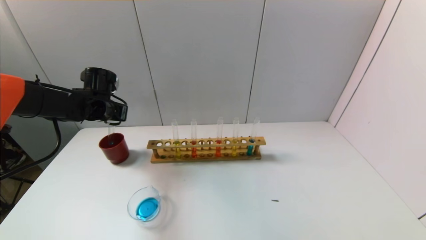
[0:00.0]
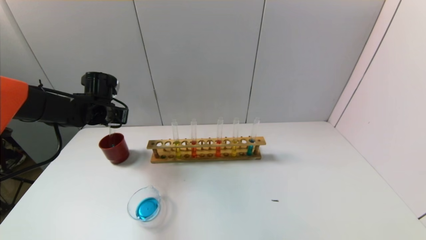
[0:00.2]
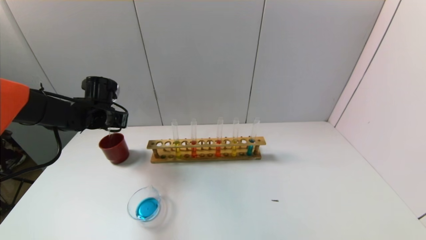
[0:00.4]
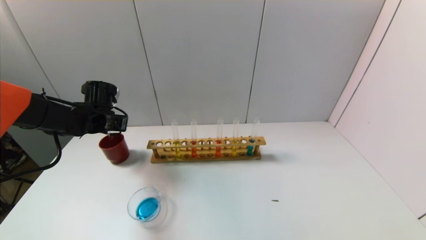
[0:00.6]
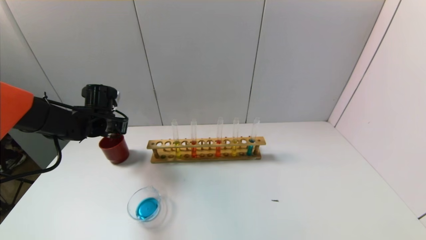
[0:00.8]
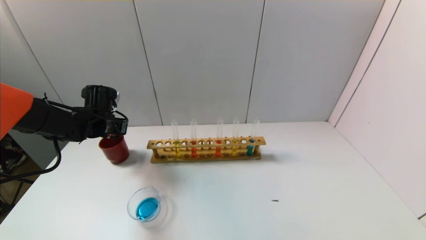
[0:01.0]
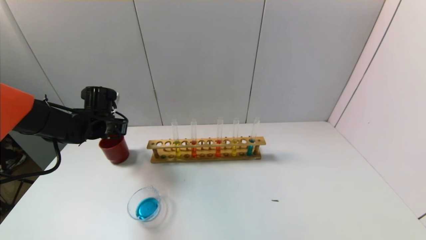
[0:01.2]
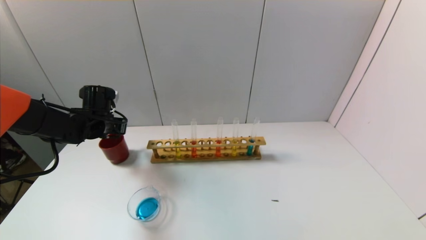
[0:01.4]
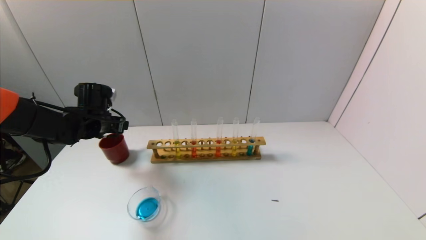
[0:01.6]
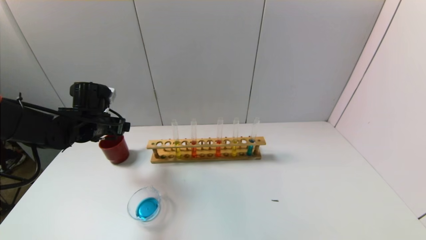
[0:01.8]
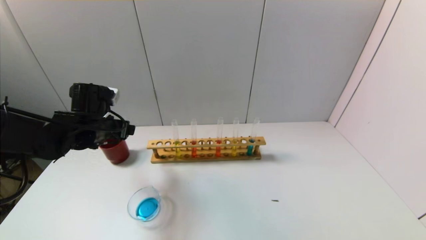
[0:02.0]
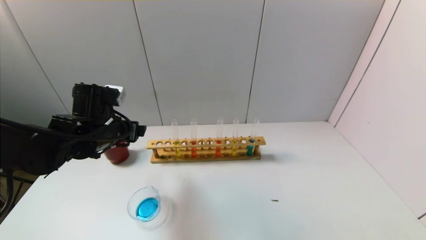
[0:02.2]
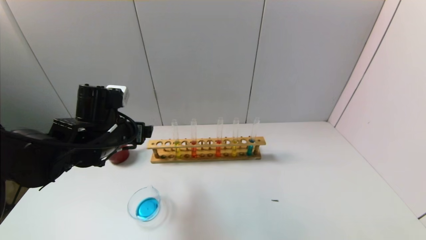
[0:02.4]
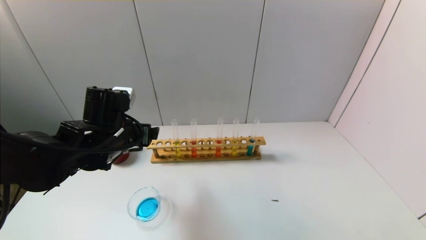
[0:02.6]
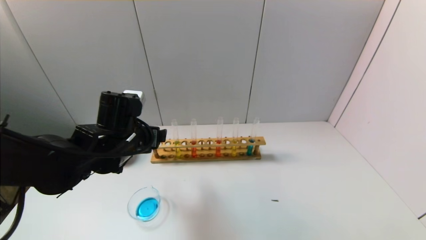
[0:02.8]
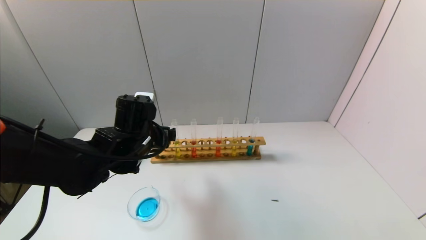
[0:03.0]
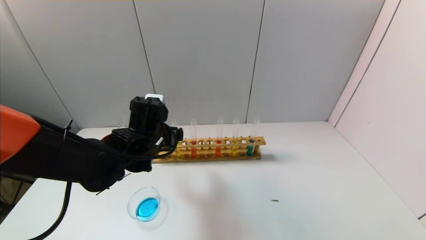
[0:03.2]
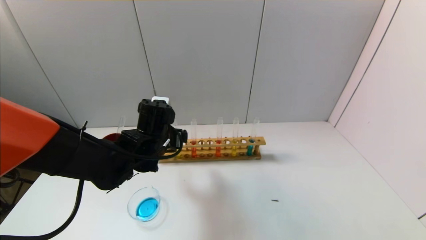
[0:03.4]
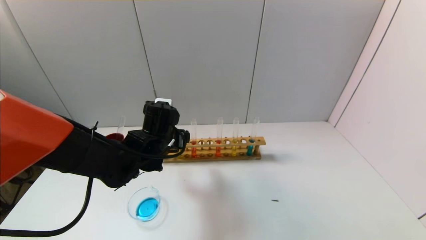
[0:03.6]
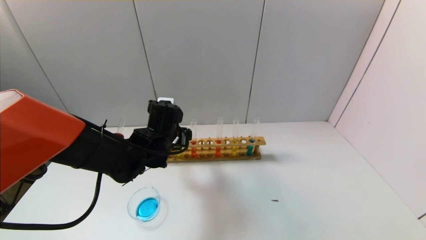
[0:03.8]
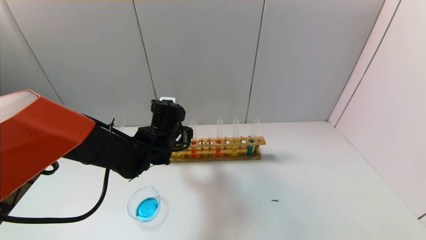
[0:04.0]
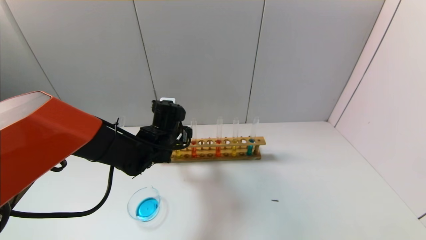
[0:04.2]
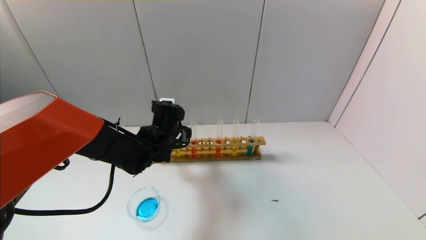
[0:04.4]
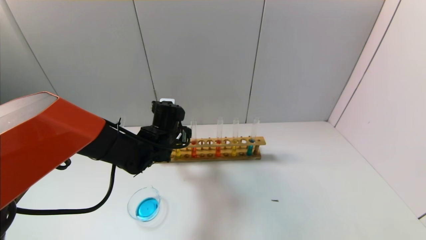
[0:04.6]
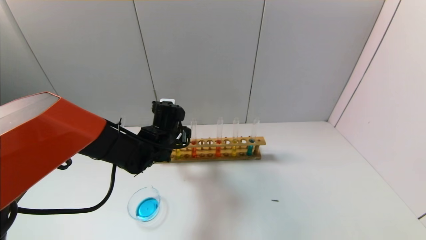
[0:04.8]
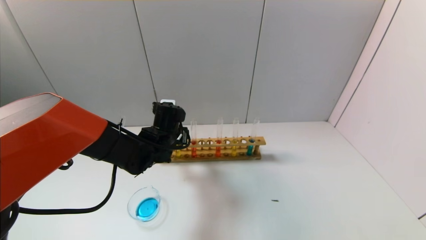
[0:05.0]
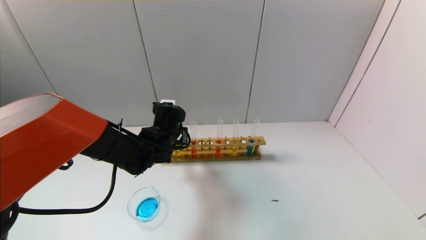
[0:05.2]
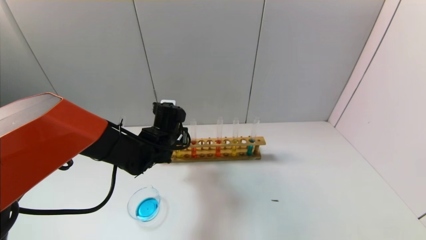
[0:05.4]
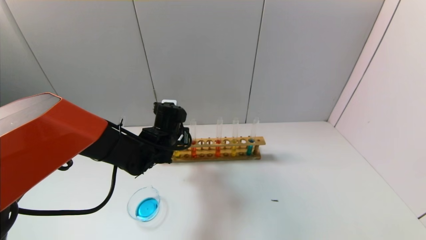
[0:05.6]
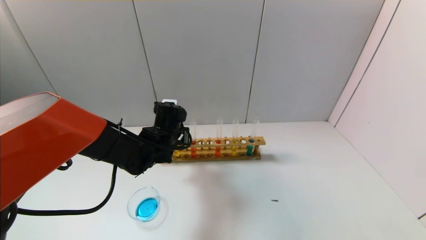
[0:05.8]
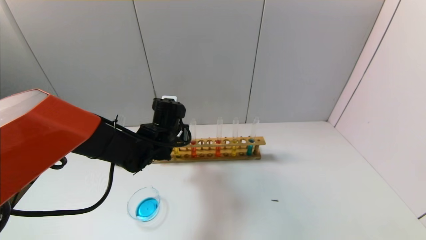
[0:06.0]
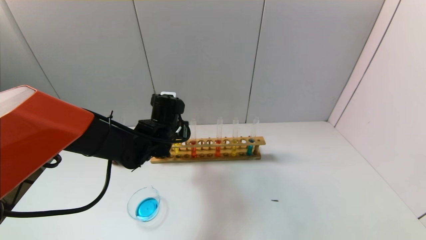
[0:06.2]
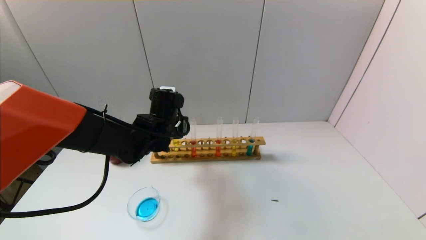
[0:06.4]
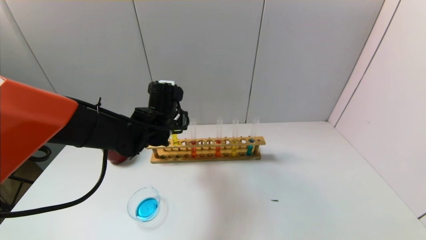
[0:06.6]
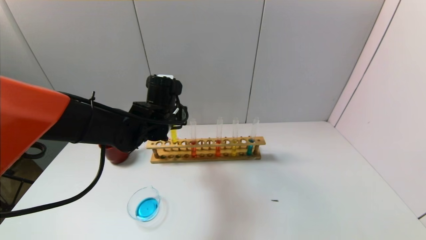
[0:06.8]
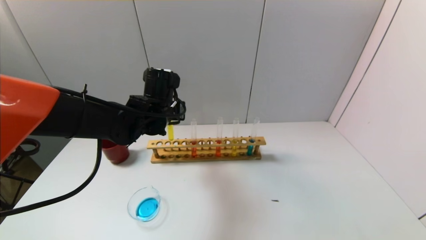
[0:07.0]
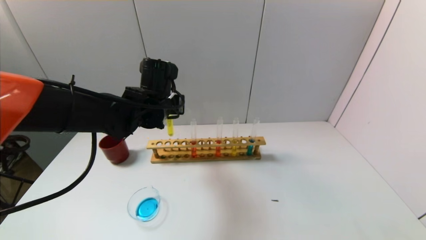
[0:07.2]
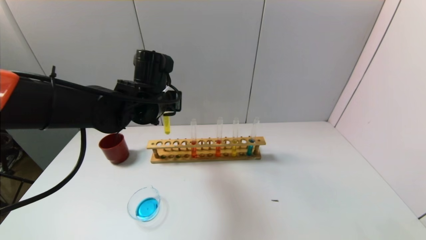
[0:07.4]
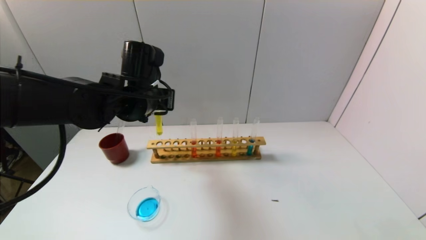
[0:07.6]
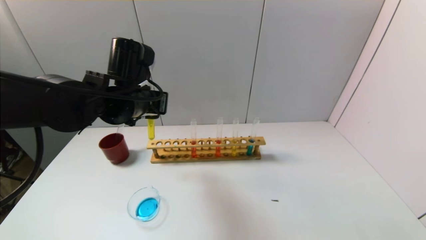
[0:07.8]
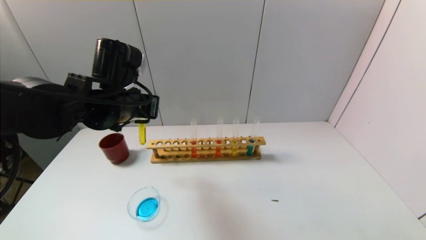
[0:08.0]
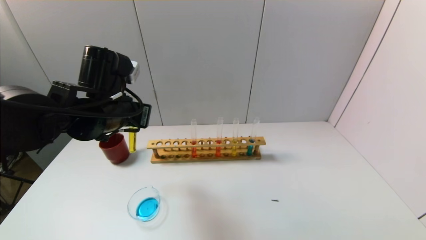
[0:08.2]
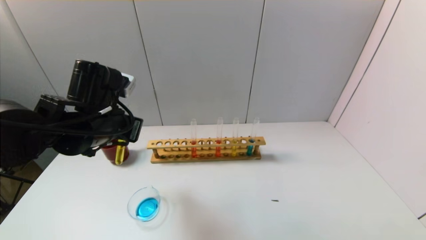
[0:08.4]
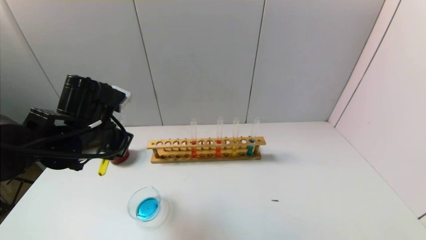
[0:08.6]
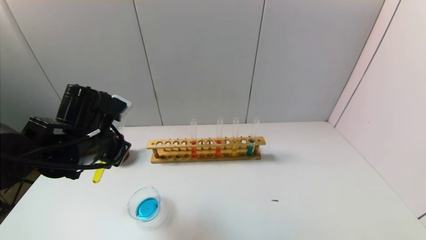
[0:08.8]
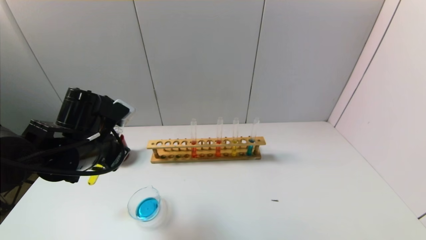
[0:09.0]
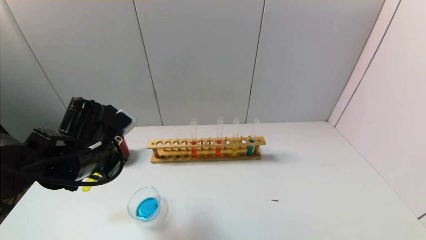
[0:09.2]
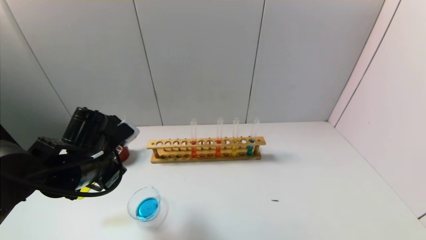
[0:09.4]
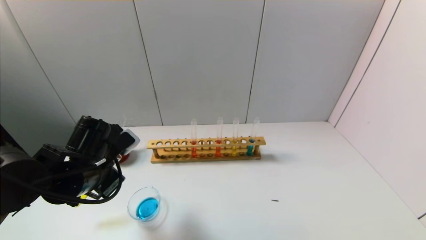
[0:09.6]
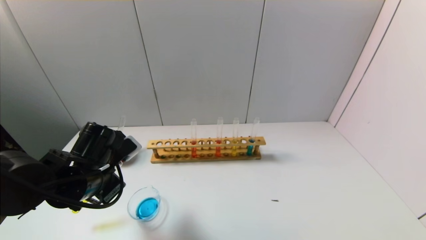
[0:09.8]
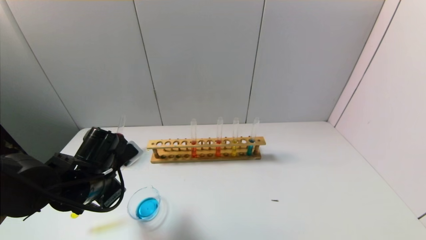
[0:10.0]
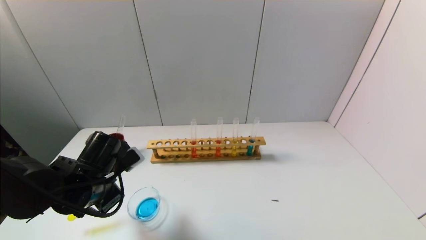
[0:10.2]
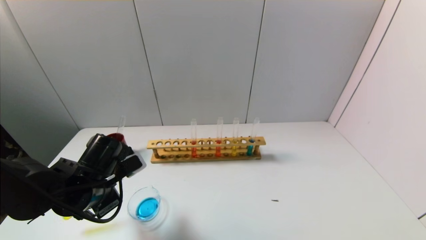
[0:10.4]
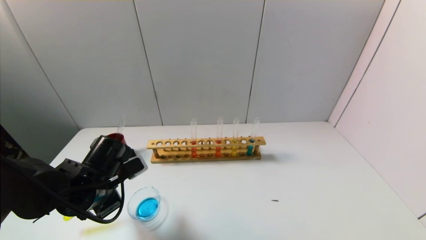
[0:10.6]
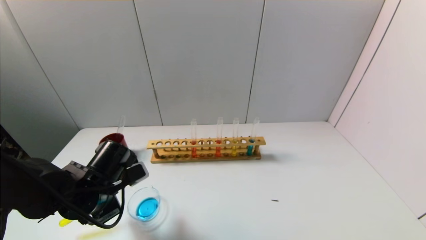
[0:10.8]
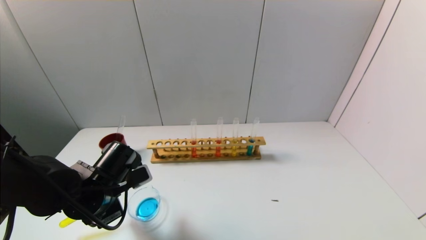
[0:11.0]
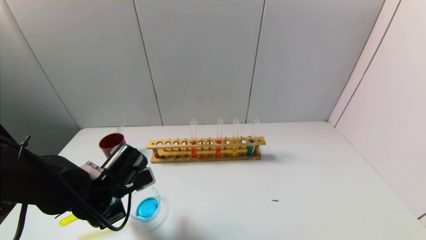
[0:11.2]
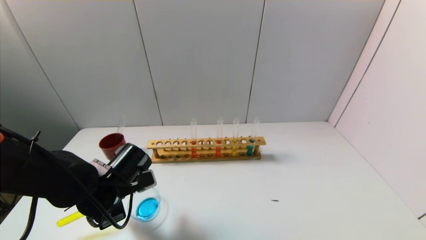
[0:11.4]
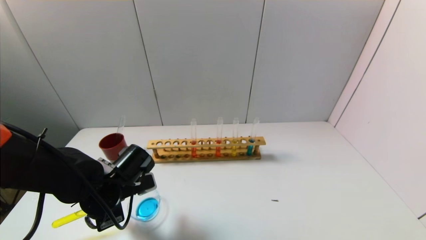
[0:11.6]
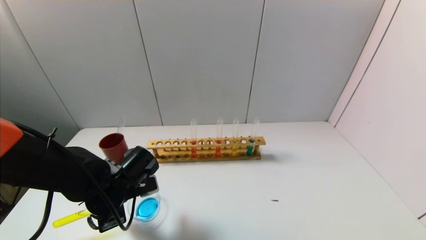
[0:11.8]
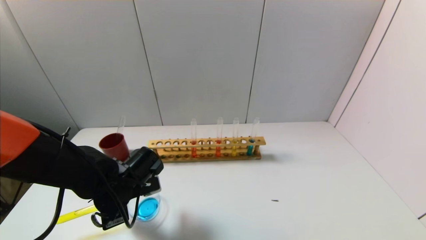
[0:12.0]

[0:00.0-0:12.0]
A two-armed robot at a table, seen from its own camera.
Task of the whole recording: pick up the test tube with yellow pigment and the test tube with blue pigment by grippers and pour them into the beaker.
Step, 0:01.6 to 0:05.6: Grasp the yellow reagent with the left gripper.
0:00.0 to 0:01.6: The left gripper opens up.
0:01.6 to 0:03.0: The left gripper shifts roughly 15 cm to the right and backward.
0:03.0 to 0:04.4: The left gripper goes approximately 5 cm forward.
0:04.4 to 0:06.0: The left gripper closes its fingers.
0:06.0 to 0:07.6: The left gripper goes roughly 10 cm upward.
0:07.6 to 0:09.0: The left gripper goes roughly 10 cm backward, to the left and downward.
0:09.0 to 0:10.4: The left gripper is displaced downward by approximately 10 cm.

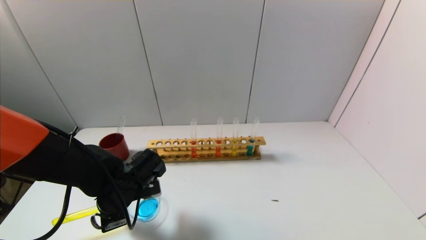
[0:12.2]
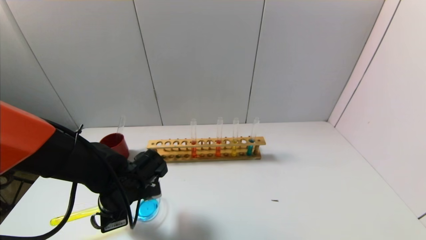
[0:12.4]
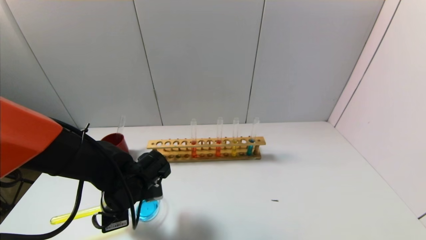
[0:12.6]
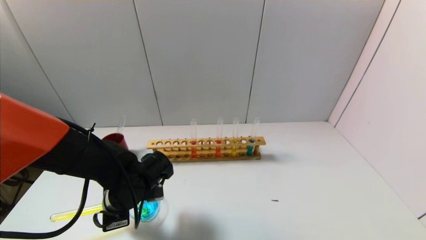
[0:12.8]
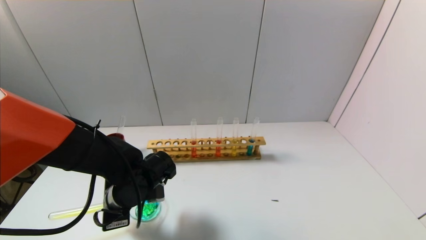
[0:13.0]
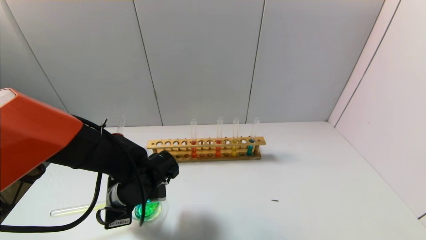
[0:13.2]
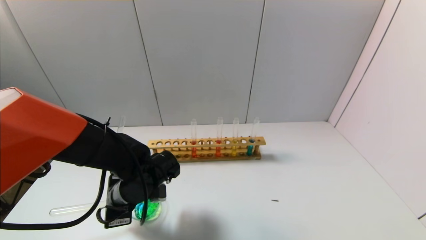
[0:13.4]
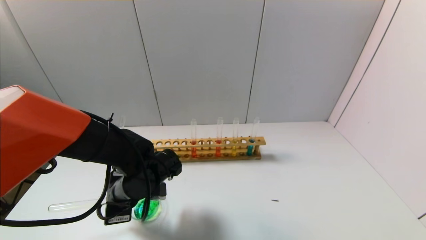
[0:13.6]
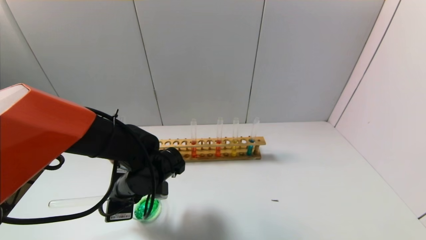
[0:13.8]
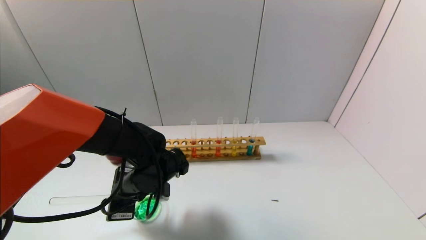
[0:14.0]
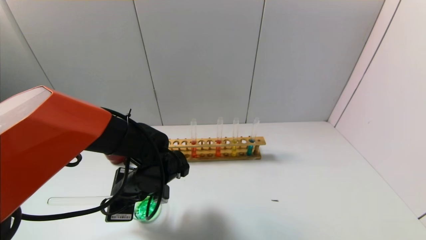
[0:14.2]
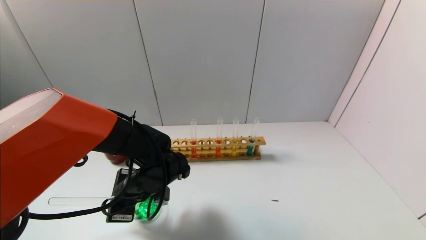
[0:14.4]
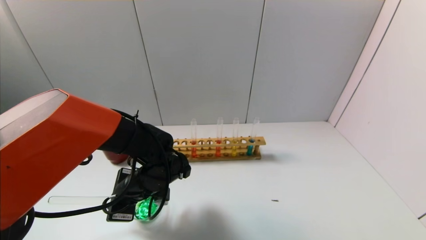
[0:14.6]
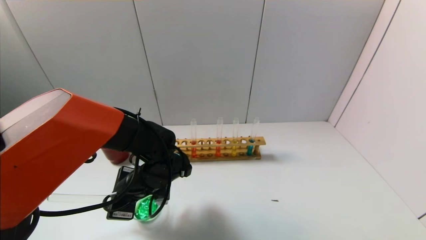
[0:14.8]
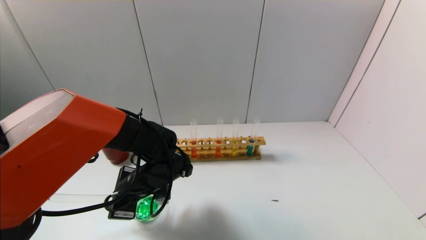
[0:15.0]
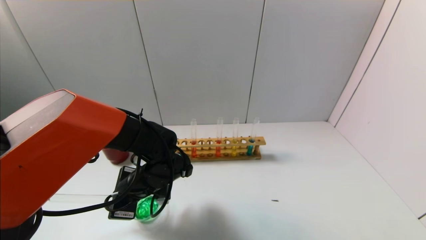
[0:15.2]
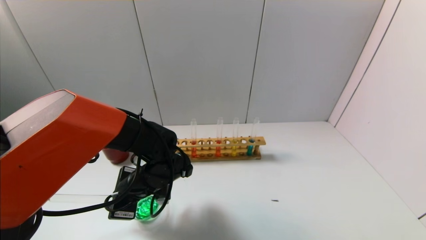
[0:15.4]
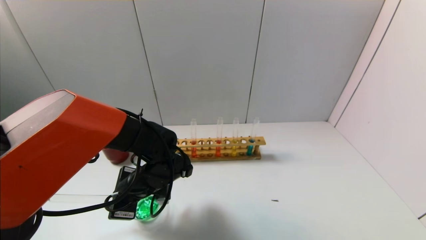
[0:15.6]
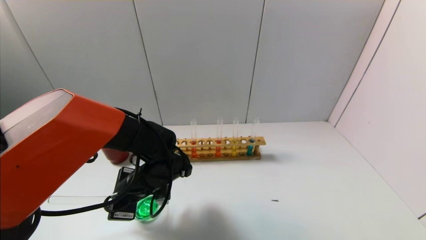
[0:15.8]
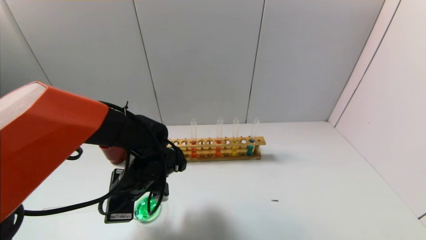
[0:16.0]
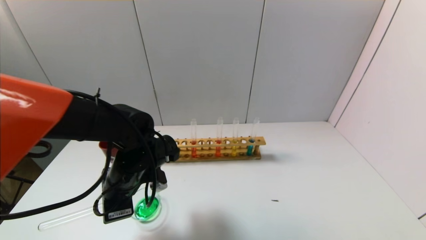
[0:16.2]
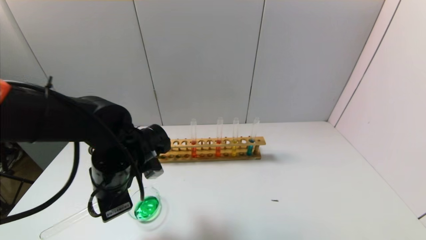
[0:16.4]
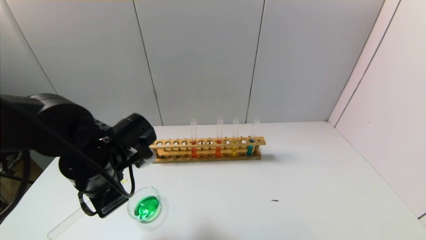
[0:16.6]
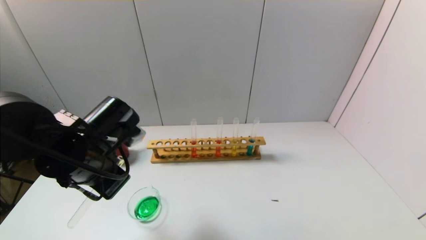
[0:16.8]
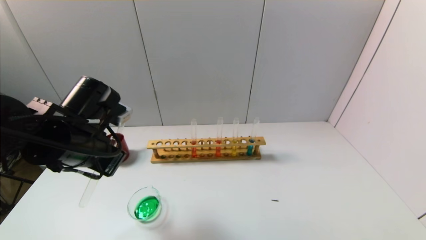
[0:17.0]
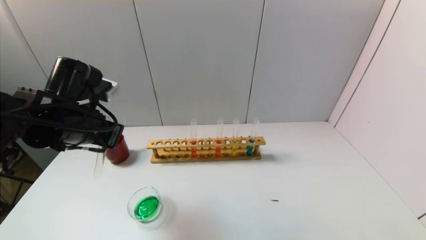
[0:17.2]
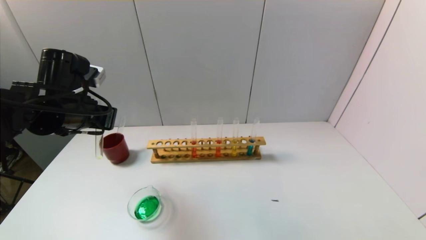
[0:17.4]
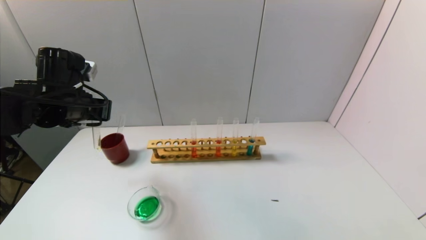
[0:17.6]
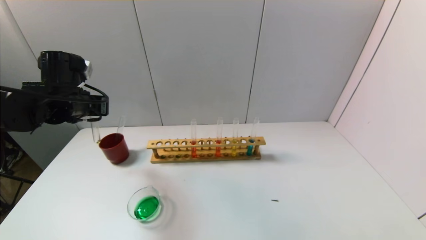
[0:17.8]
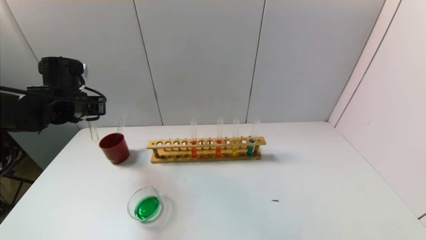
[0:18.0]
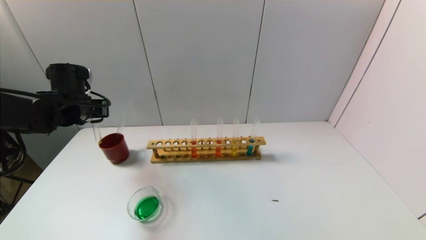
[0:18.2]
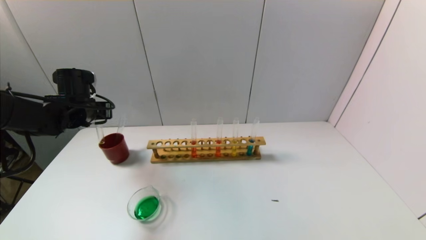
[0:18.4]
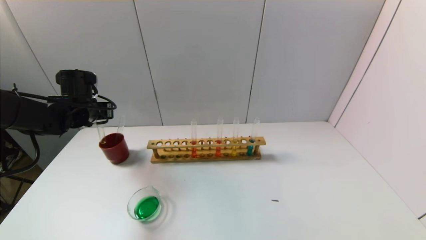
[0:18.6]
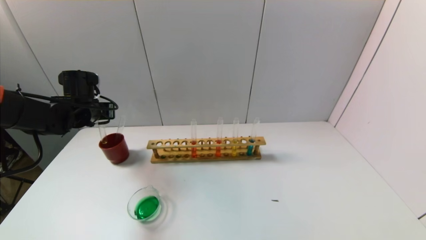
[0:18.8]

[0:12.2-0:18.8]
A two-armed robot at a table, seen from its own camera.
Task of the whole recording: pick up the test tube with yellow pigment and the test tube with blue pigment by grippers and pour them into the beaker.
Step, 0:12.2 to 0:16.0: Pour the yellow reagent into the graduated cylinder with the left gripper.
0:12.2 to 0:13.8: The grippers stay close to where they were, moving slightly.
0:13.8 to 0:15.4: The grippers make only small movements.
0:15.4 to 0:17.2: The left gripper goes approximately 15 cm upward and to the left.
0:17.2 to 0:18.8: The left gripper is displaced forward, to the left and downward by some 15 cm.
